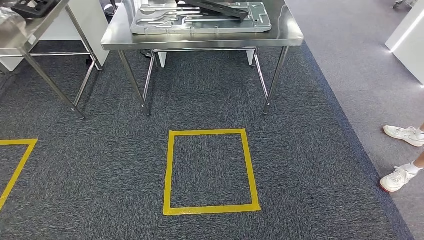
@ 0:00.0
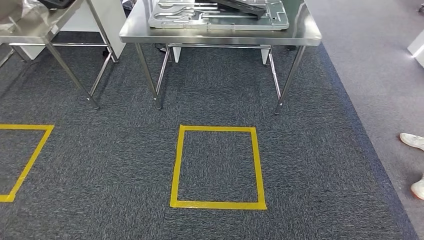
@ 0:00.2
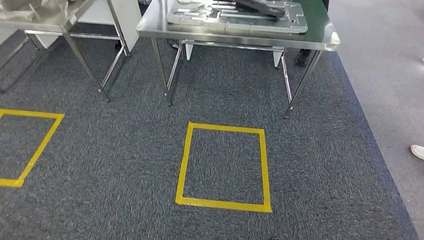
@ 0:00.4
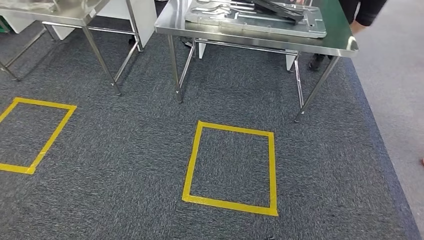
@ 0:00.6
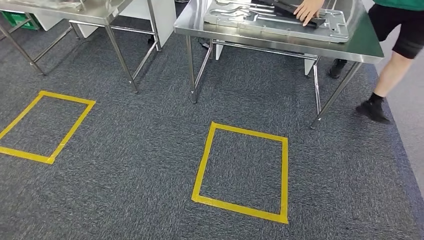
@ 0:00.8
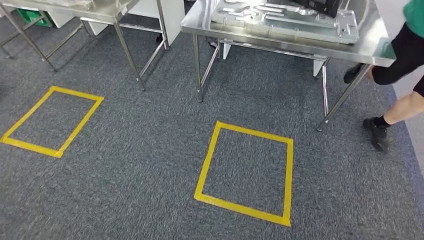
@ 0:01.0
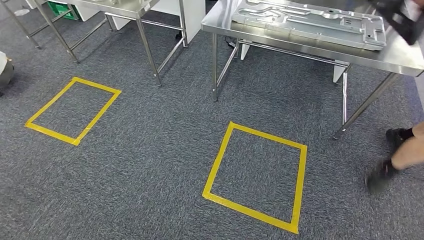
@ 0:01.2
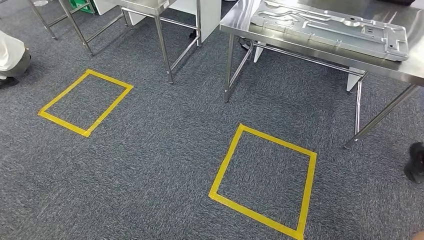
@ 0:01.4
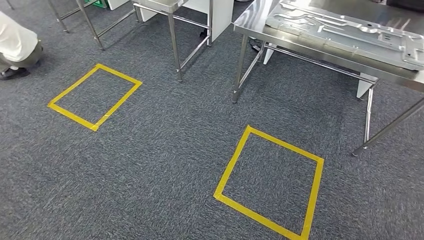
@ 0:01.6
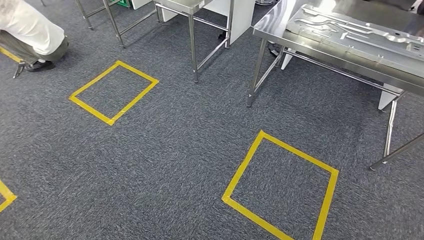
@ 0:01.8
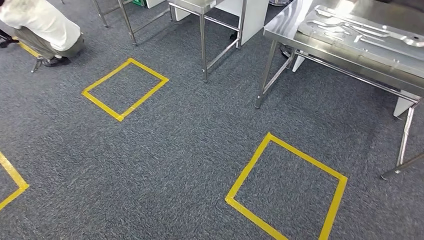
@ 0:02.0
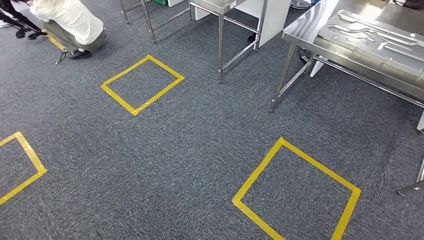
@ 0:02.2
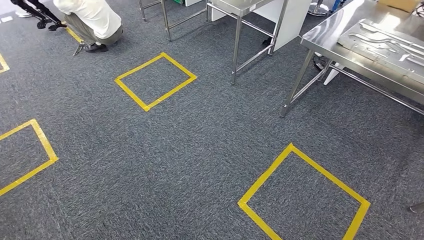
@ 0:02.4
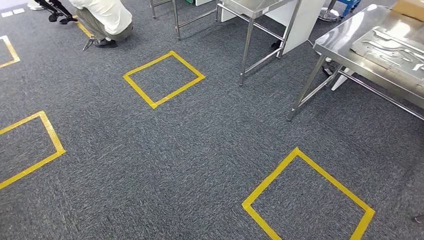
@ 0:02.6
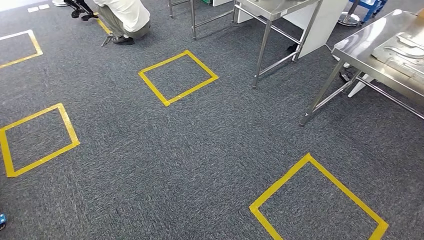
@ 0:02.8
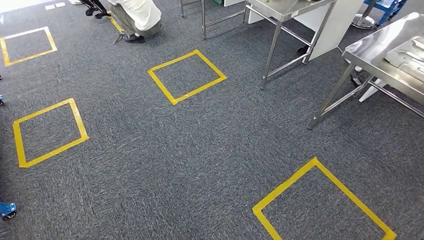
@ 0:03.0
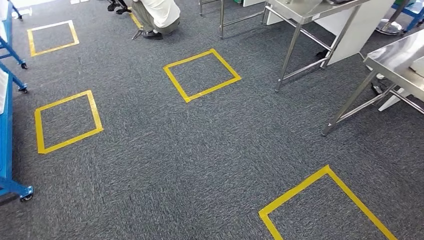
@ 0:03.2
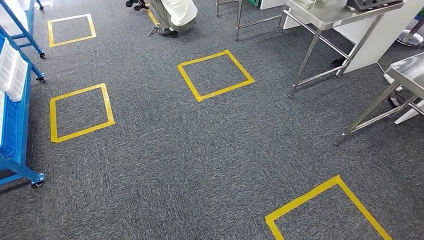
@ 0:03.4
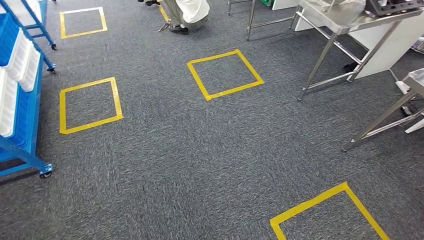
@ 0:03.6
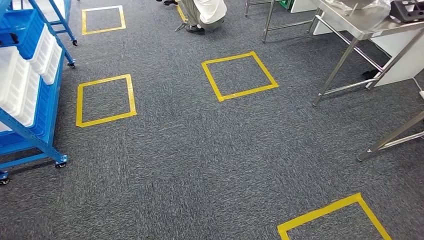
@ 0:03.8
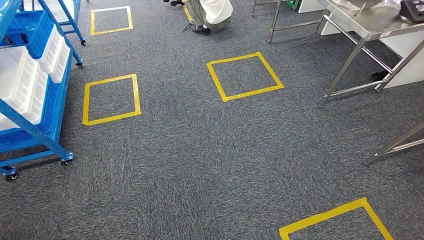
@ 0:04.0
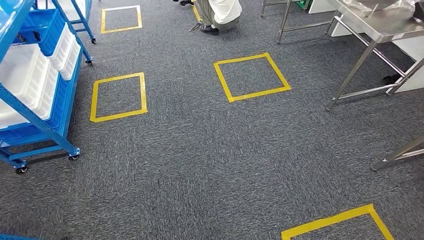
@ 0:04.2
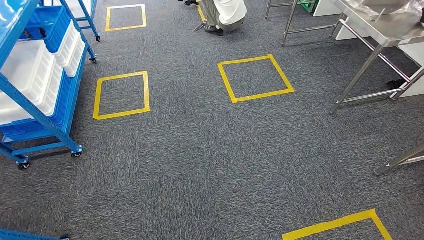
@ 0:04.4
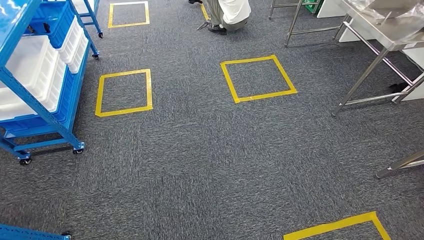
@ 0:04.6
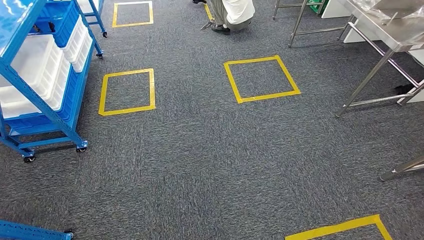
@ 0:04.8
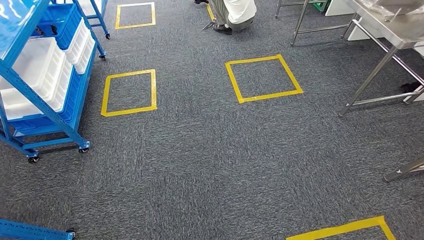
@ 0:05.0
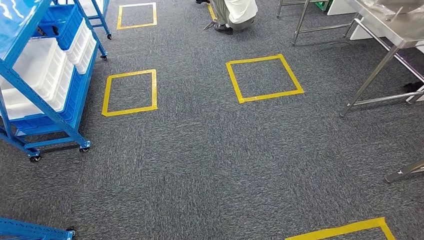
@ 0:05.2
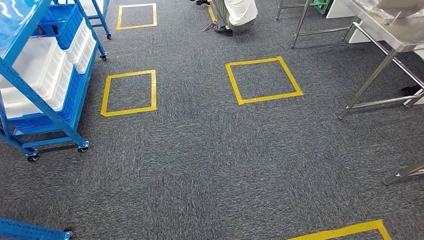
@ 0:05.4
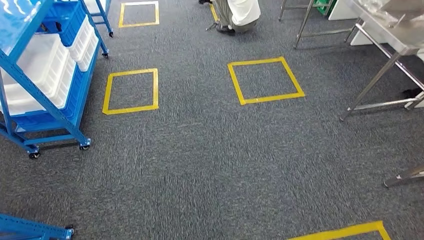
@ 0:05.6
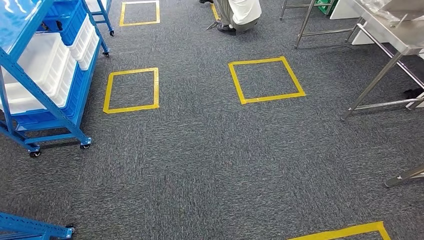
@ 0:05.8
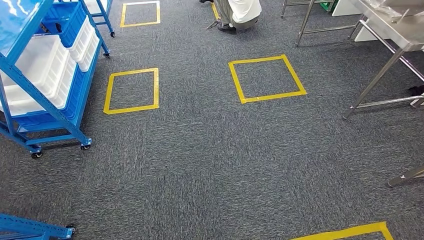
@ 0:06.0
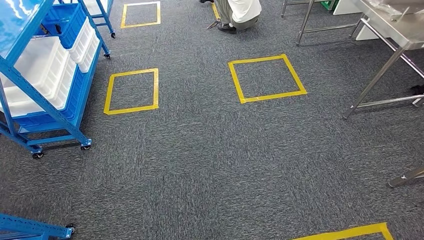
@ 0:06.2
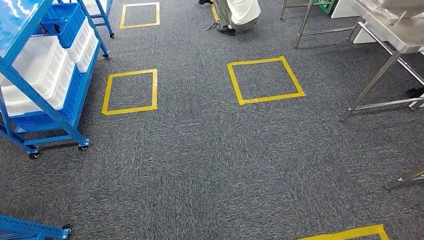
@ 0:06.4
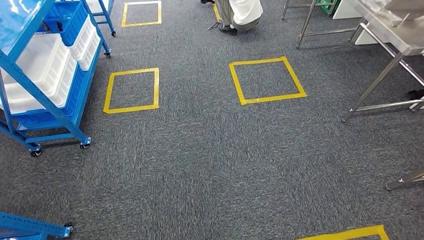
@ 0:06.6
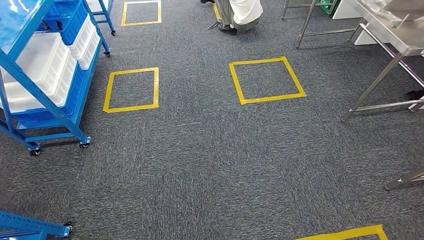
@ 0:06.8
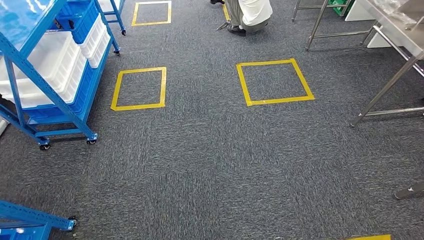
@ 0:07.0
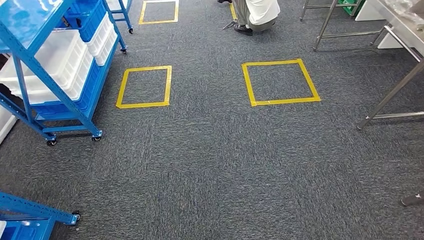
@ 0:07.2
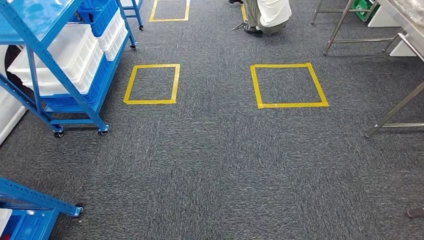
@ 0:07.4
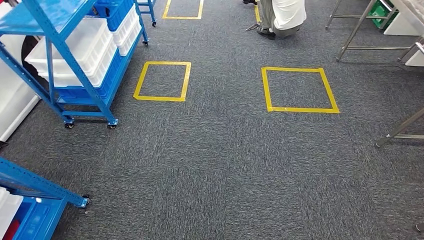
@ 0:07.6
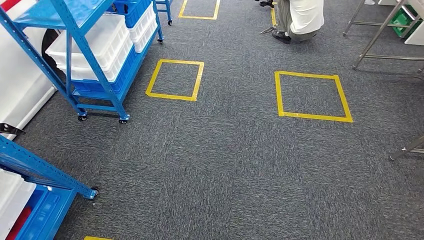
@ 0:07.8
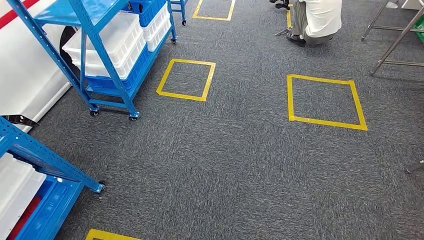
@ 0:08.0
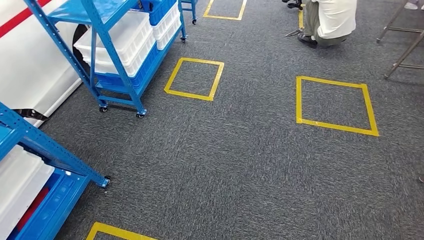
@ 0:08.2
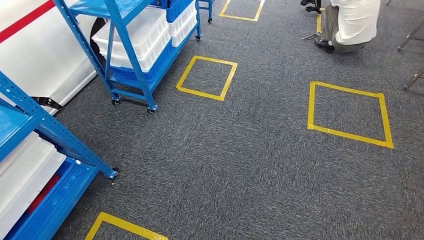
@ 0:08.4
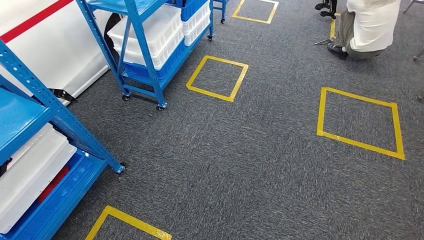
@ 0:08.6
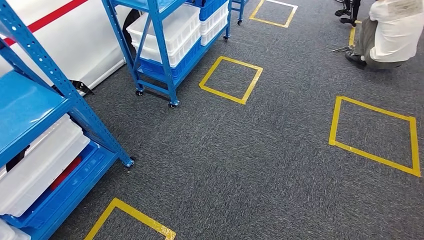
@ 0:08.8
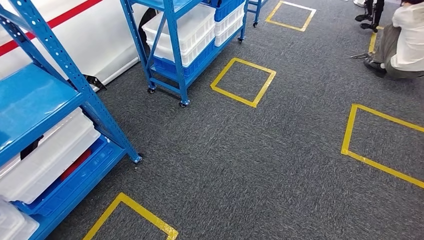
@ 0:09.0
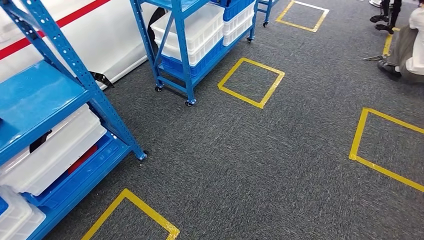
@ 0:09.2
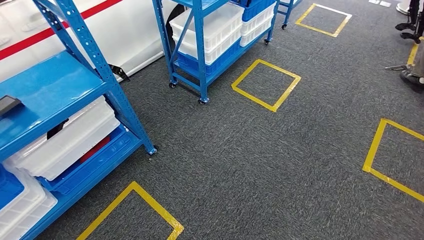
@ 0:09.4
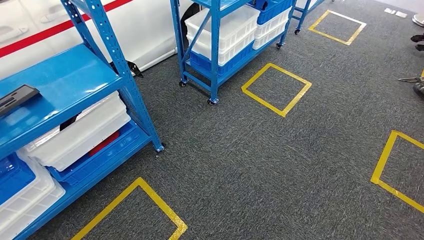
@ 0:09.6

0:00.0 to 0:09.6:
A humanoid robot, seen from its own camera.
0:04.8 to 0:06.4: The hands stay close to where they were, moving slightly.

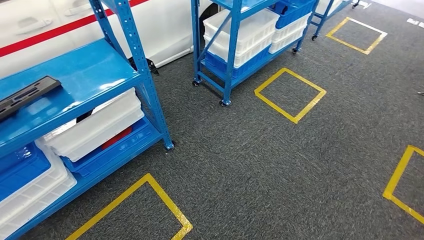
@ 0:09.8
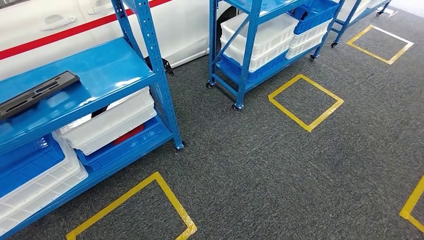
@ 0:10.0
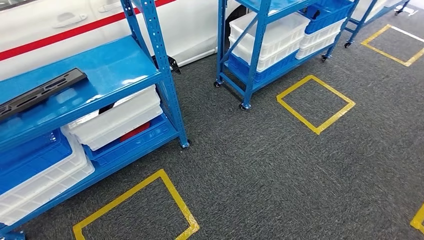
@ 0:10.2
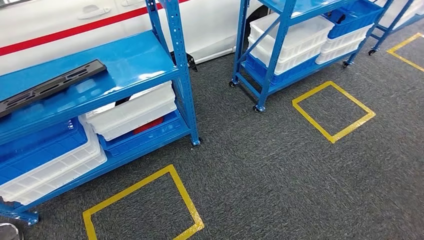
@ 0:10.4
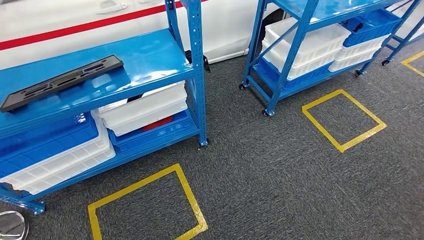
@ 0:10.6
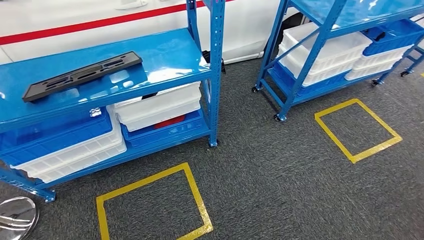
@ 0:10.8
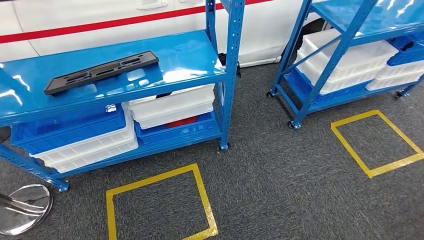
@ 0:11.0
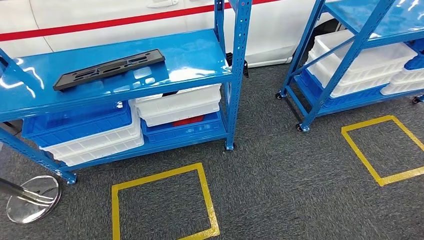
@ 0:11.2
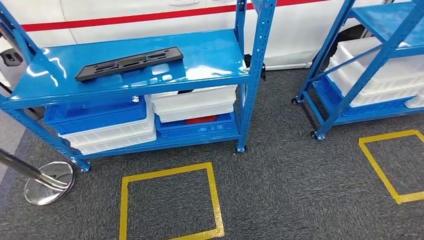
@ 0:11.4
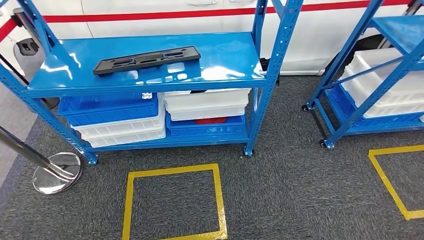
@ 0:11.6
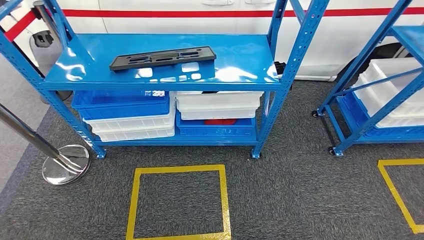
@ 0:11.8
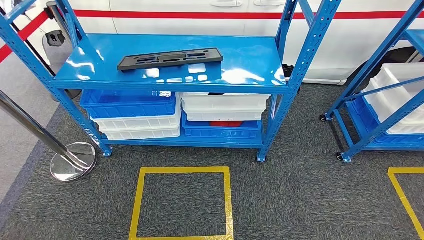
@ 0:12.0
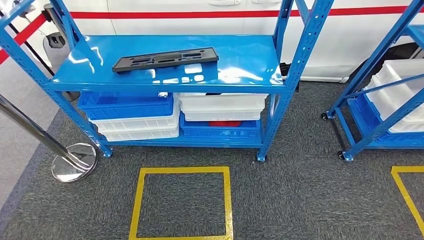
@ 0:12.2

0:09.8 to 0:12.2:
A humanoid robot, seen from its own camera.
Step, 0:09.8 to 0:12.0: Return to the initial position at the shelf.
